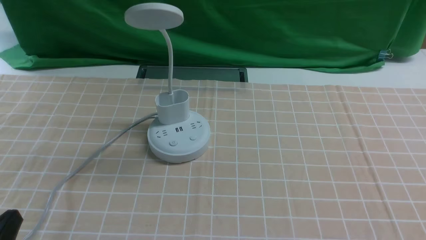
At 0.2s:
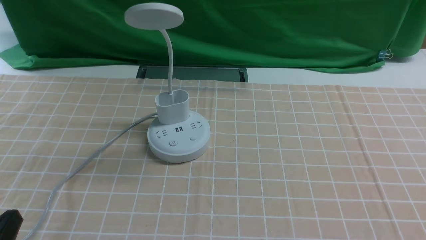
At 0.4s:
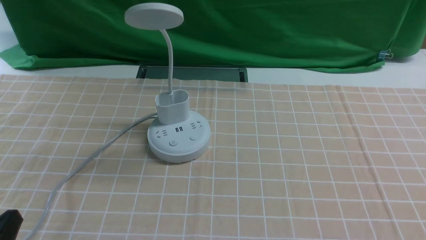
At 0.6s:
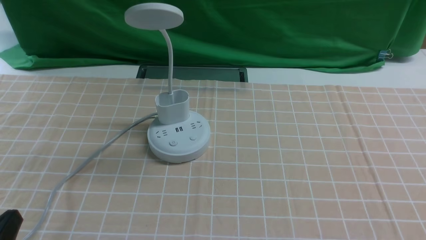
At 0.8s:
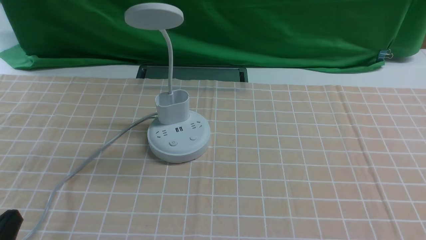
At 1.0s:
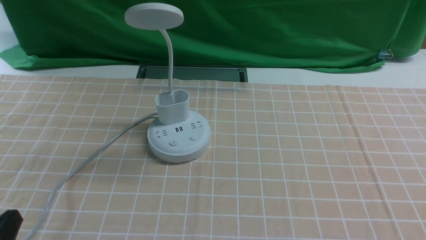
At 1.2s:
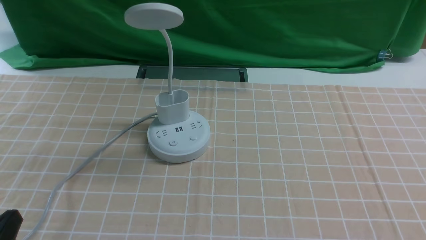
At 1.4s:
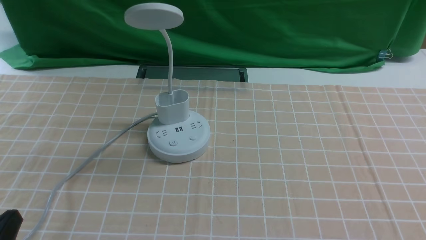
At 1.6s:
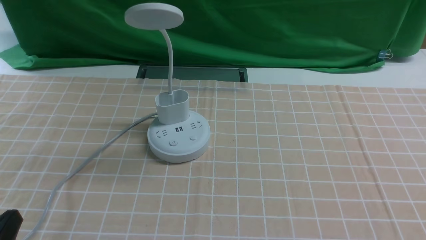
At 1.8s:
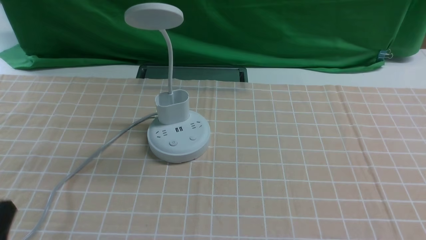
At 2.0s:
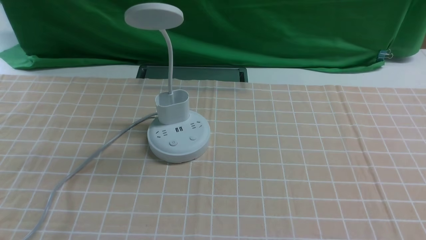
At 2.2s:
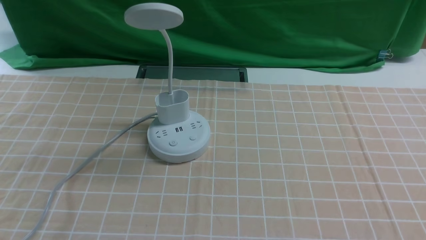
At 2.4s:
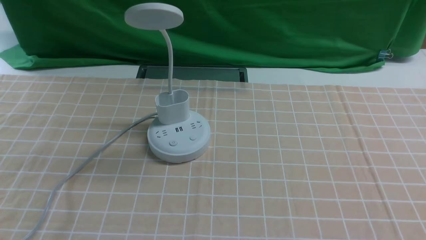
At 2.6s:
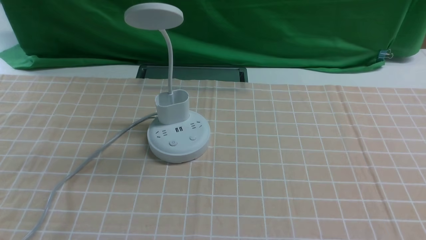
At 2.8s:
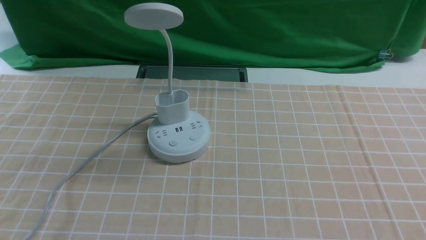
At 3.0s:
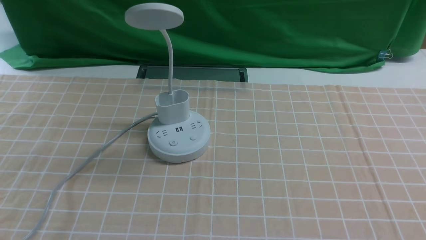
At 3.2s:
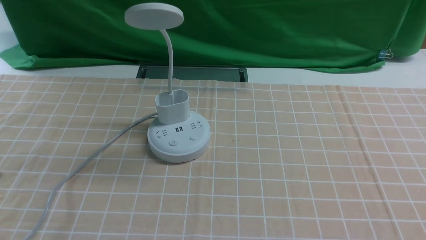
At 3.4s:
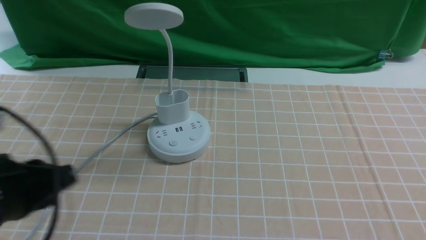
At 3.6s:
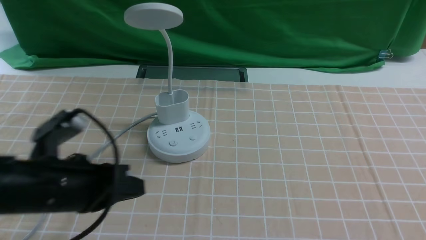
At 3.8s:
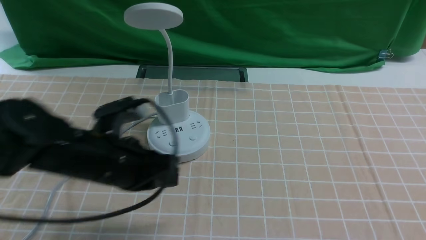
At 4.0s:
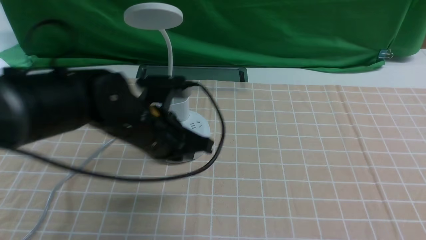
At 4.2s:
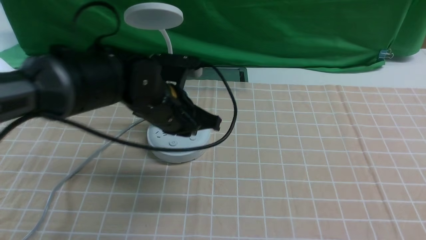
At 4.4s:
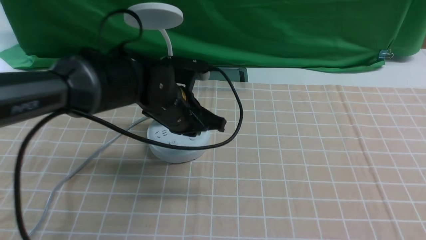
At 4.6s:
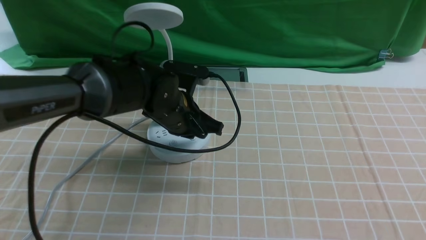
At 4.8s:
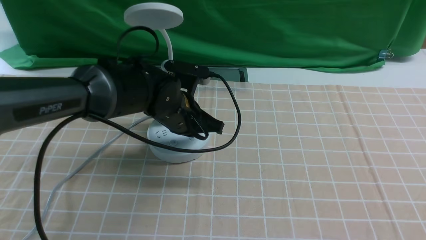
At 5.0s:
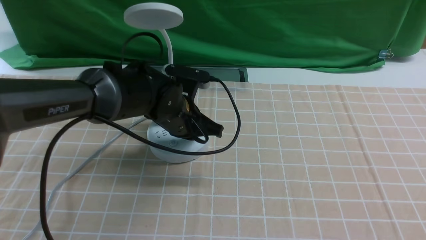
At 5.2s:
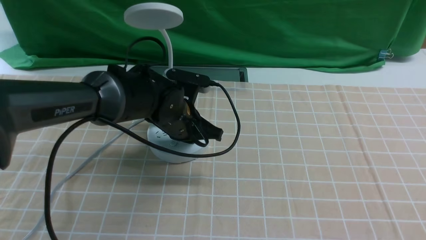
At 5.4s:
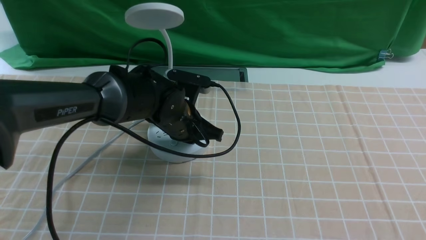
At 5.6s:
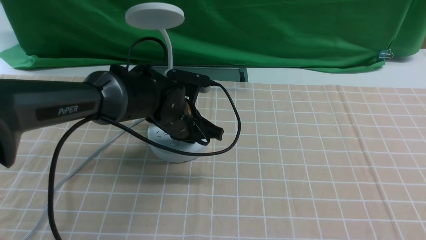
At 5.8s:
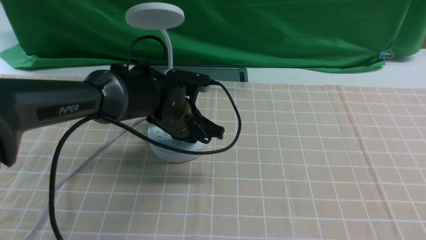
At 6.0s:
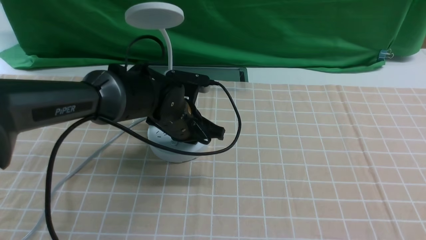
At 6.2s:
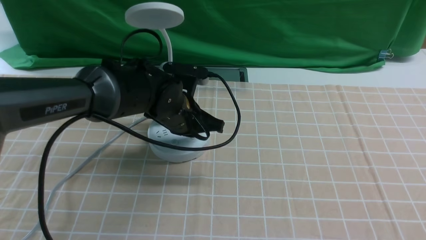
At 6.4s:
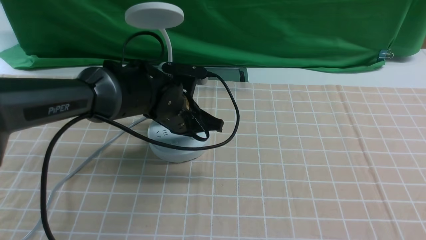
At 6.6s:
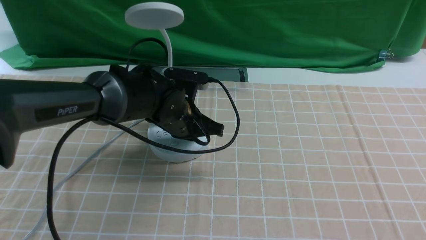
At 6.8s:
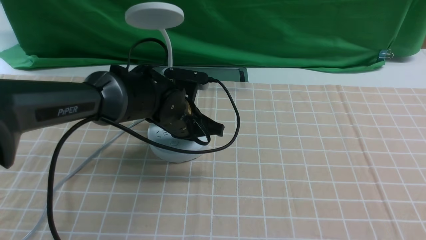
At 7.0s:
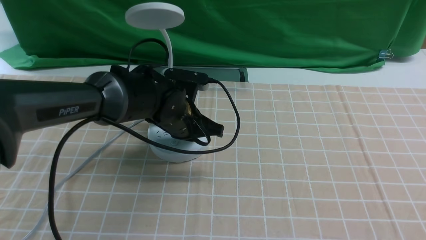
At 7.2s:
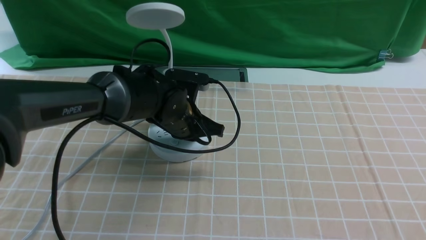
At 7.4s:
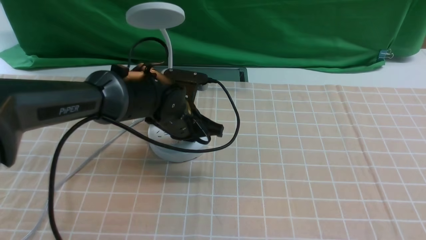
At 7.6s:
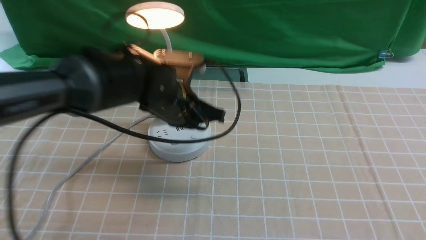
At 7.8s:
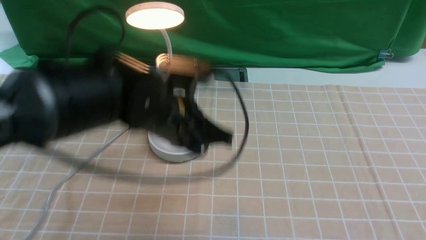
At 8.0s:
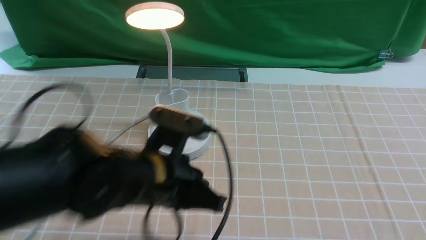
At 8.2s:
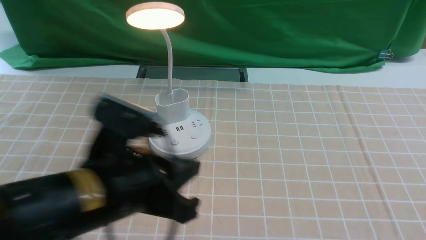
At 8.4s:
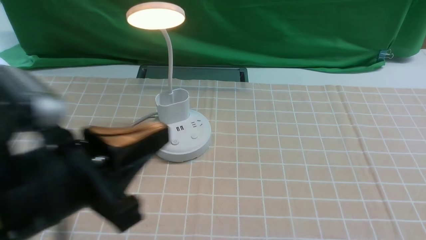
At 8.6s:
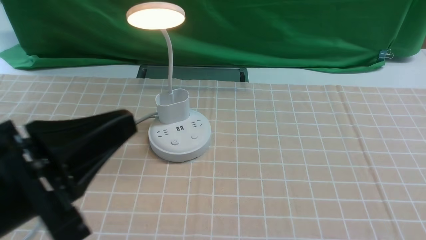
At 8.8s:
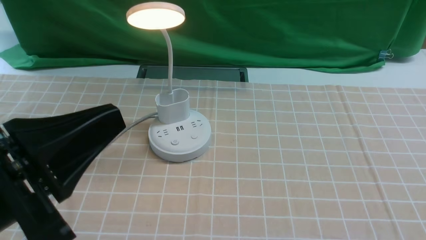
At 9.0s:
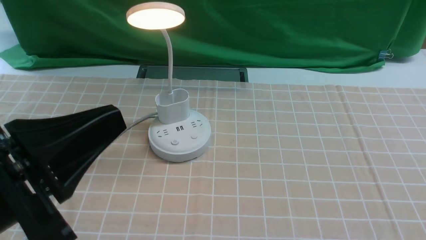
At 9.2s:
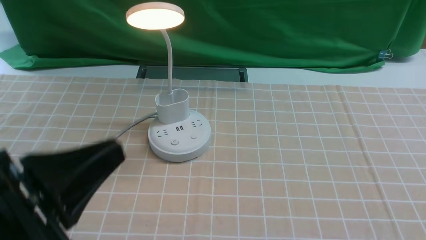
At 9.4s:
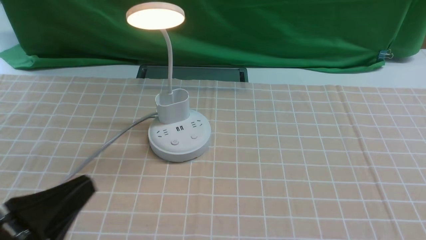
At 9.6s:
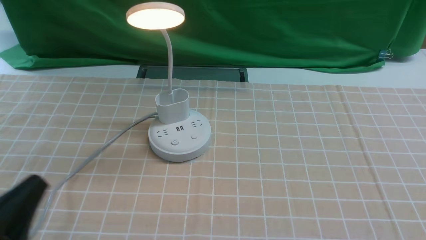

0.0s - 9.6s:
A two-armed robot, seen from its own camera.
Step, 0.0s - 7.8s: use the left arm to press the button switch on the lamp holder.
3.2s - 4.8s: The left gripper travels forward, to the right and downward by about 40 cm, and closes up.
4.8s - 6.4s: There are only small adjustments of the grippers.
6.4s - 8.0s: The left gripper is displaced backward and upward by roughly 15 cm.
8.0s - 9.6s: The left gripper heads backward and to the left, covering some 25 cm.

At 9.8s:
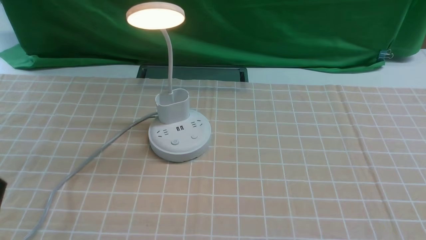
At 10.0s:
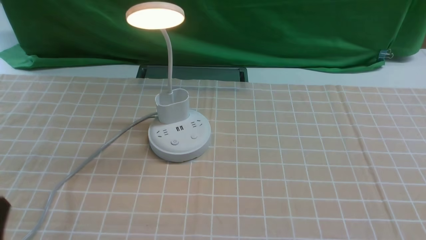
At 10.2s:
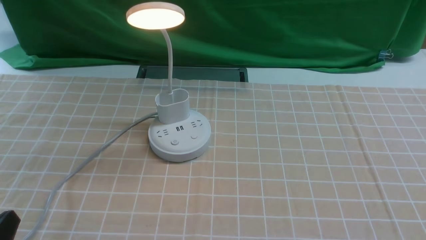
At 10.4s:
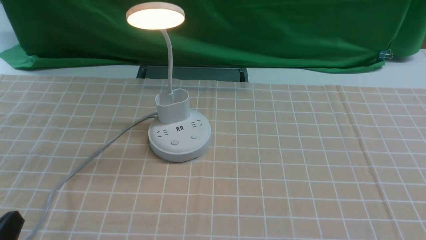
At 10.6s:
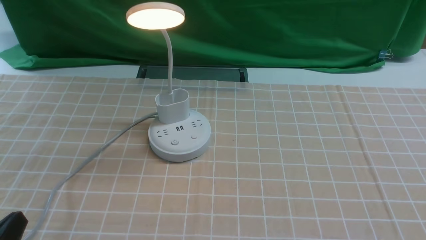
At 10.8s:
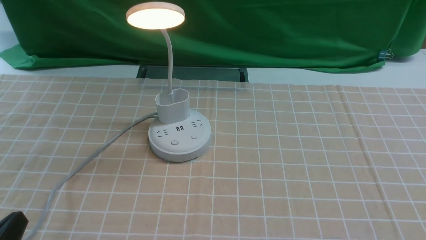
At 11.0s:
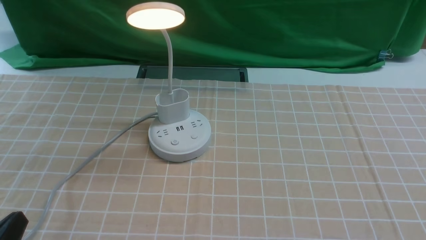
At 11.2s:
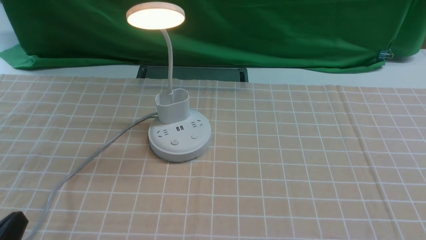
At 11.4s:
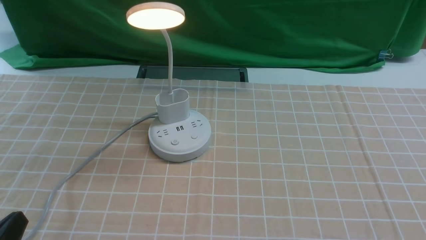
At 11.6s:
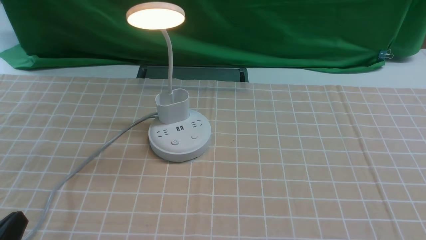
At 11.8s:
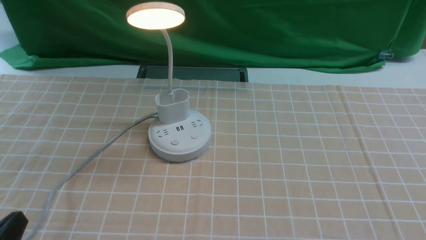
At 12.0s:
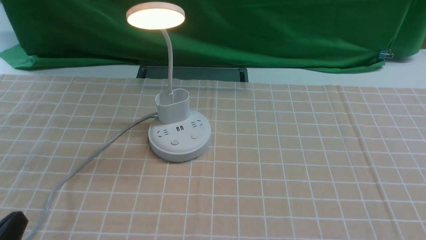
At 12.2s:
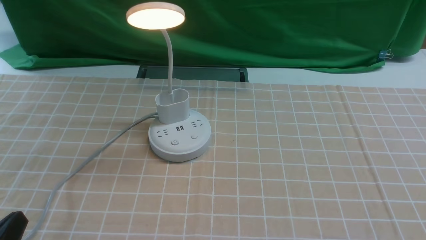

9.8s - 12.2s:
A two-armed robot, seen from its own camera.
11.0s - 12.2s: Both grippers stay about where they are.

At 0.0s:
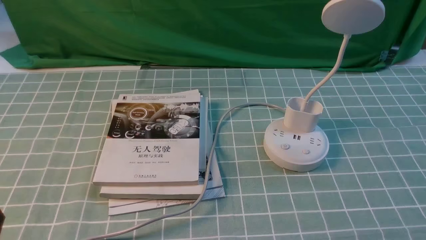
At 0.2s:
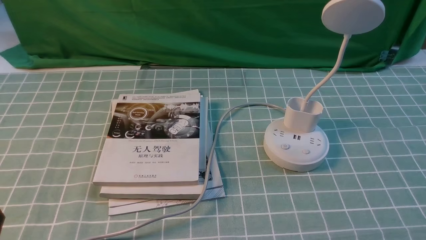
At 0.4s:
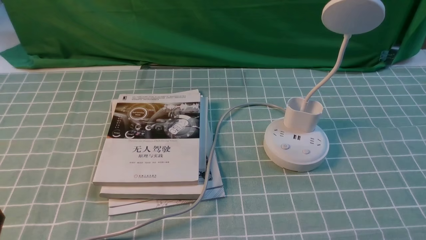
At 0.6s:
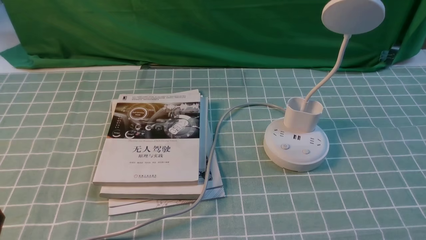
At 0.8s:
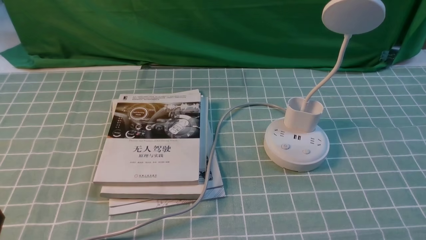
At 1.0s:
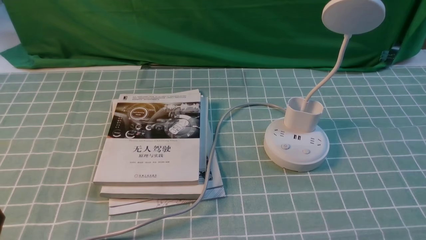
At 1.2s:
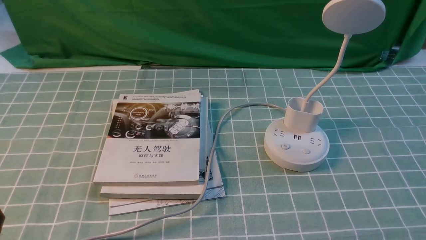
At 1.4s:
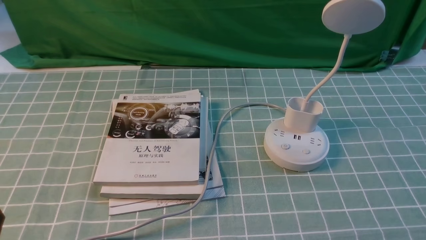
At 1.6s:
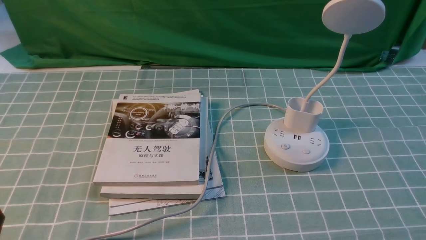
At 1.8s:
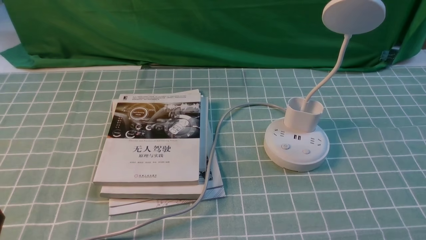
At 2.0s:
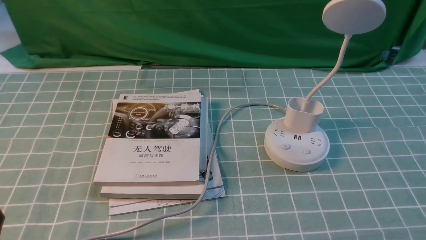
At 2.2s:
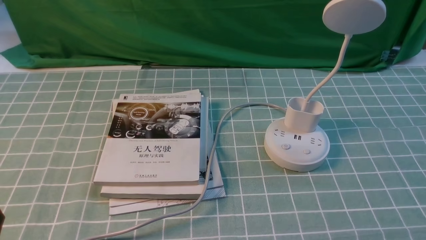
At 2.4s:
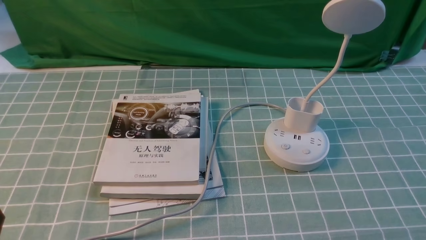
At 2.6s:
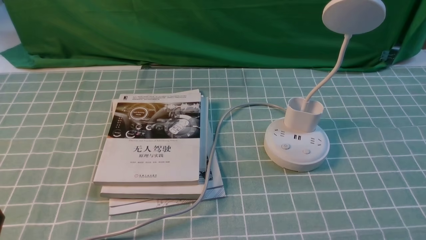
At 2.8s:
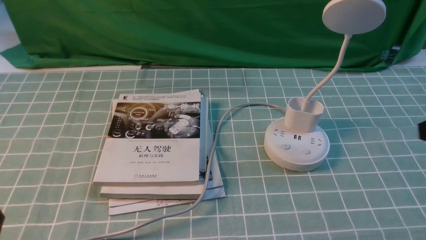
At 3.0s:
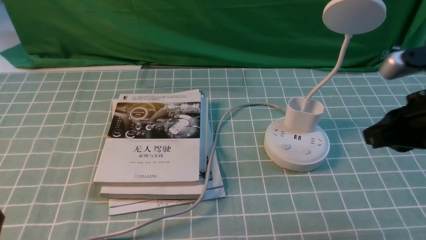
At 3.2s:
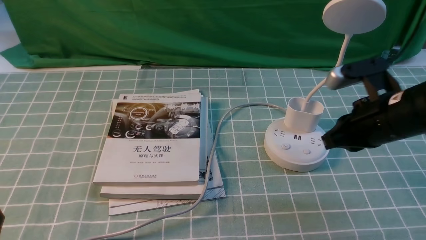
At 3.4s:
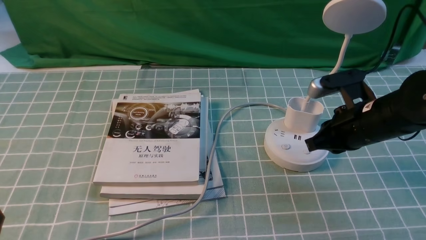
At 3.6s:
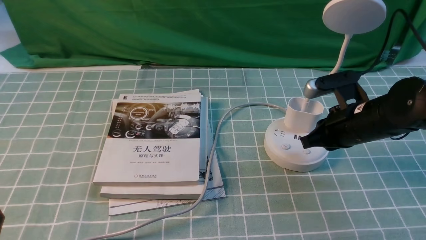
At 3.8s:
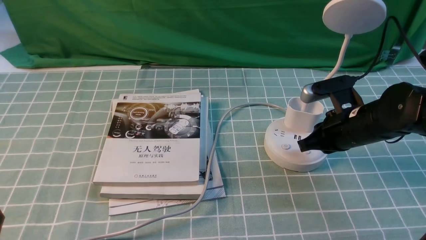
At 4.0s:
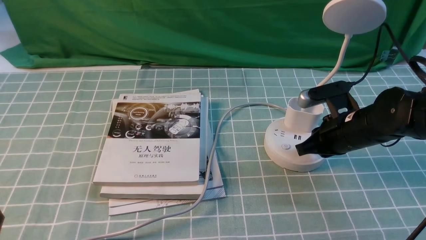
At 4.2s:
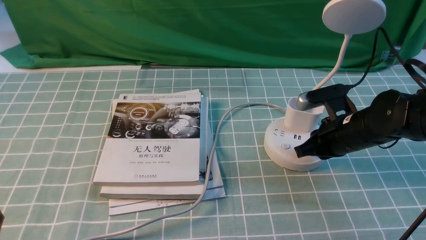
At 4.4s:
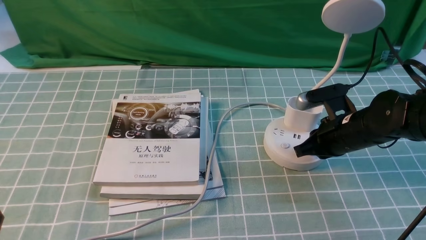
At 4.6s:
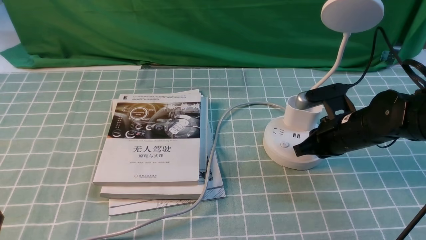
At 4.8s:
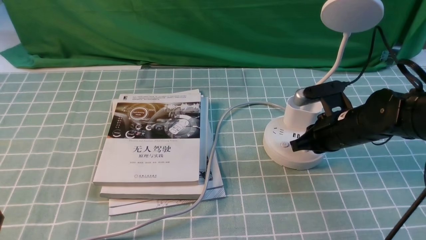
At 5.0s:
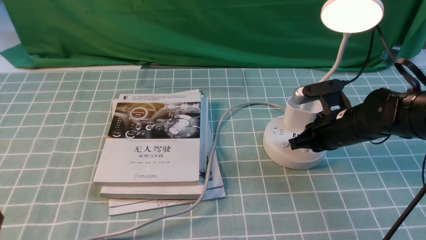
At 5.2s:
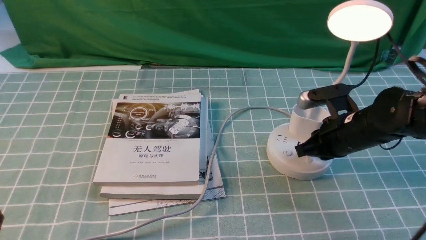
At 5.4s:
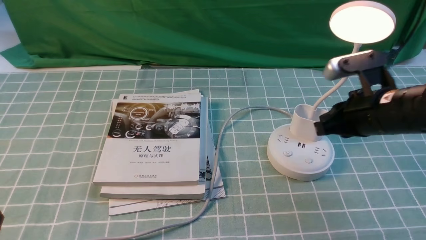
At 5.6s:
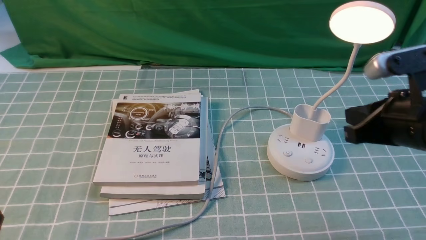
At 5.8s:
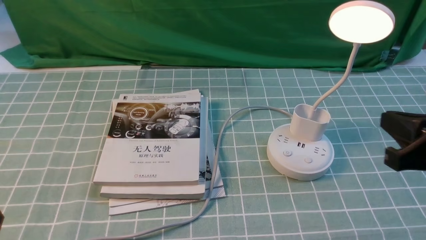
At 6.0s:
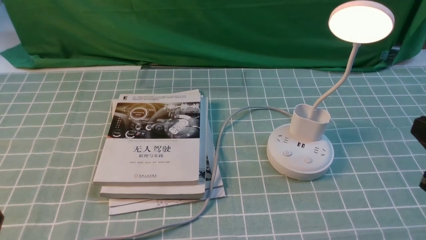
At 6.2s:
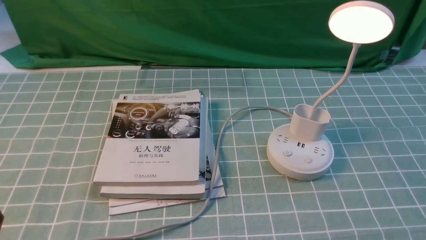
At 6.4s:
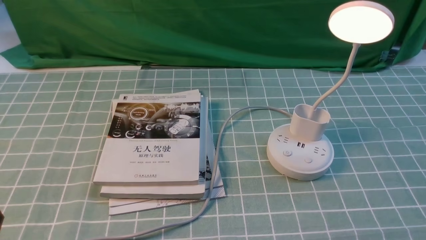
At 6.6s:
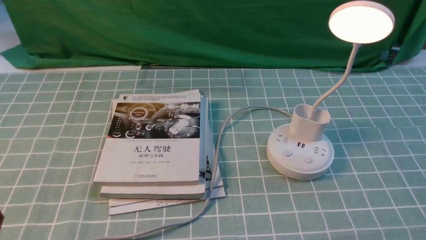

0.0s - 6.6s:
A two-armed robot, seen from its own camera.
Step, 0.0s - 5.2s: use the right arm to press the button switch on the lamp holder.
1.6s - 3.2s: The right gripper is displaced forward and upward by some 25 cm, and closes its fingers.
3.2s - 5.0s: The right gripper heads downward and forward, covering about 15 cm.
5.0s - 6.6s: The right gripper goes some 30 cm backward and upward.
